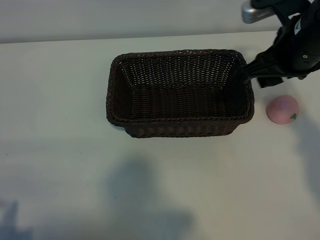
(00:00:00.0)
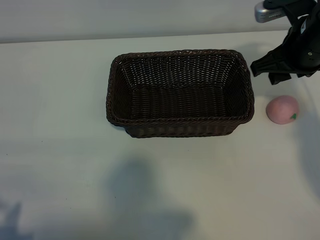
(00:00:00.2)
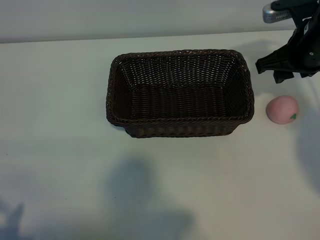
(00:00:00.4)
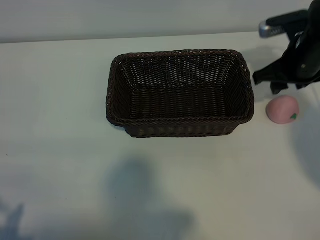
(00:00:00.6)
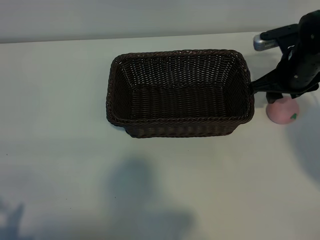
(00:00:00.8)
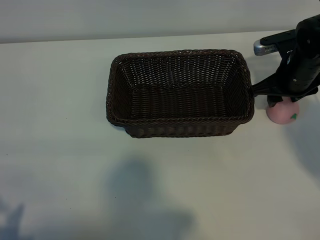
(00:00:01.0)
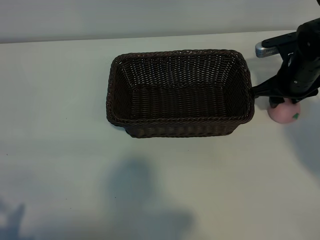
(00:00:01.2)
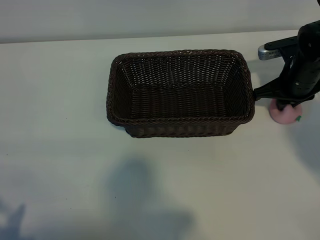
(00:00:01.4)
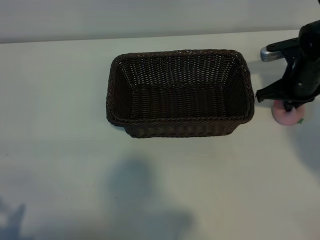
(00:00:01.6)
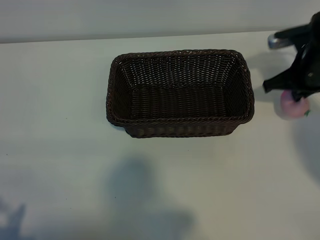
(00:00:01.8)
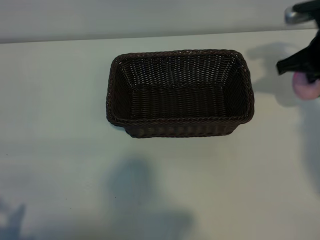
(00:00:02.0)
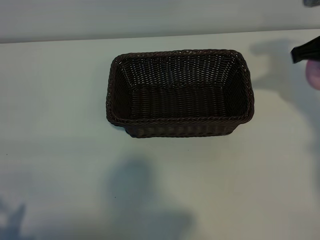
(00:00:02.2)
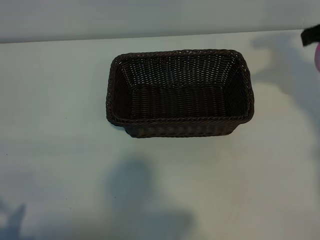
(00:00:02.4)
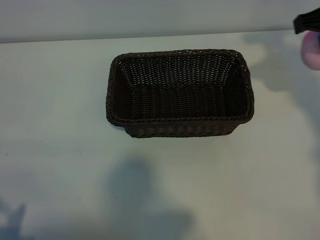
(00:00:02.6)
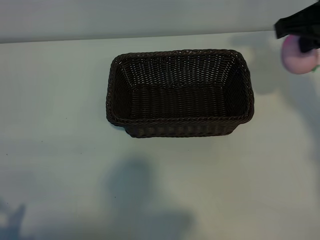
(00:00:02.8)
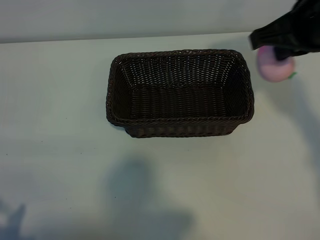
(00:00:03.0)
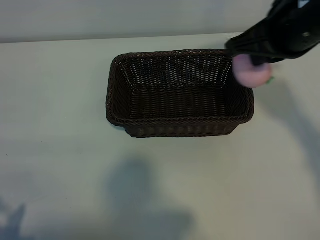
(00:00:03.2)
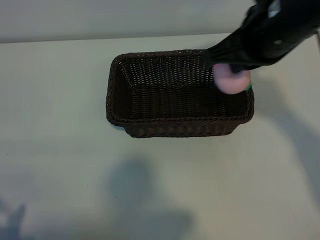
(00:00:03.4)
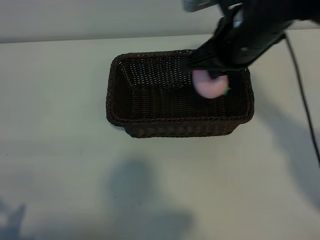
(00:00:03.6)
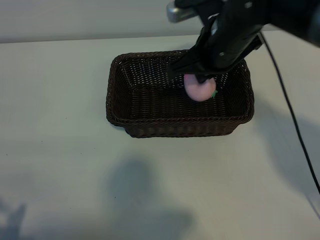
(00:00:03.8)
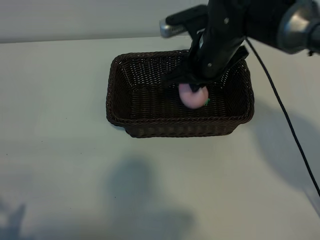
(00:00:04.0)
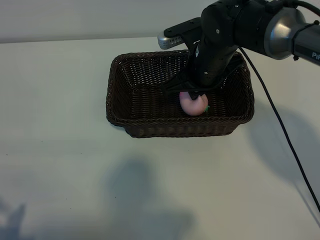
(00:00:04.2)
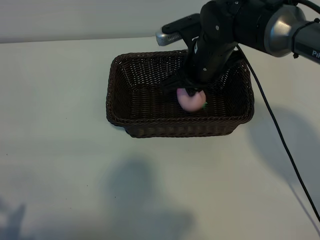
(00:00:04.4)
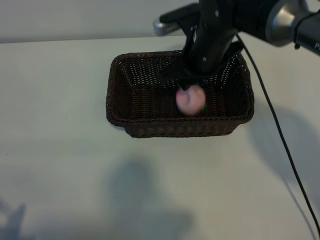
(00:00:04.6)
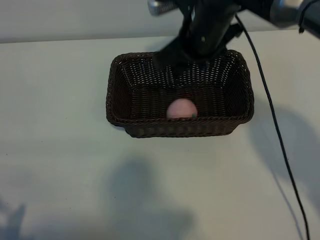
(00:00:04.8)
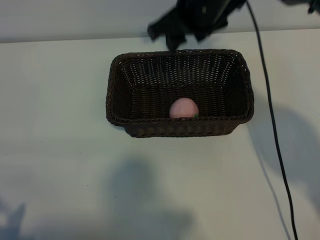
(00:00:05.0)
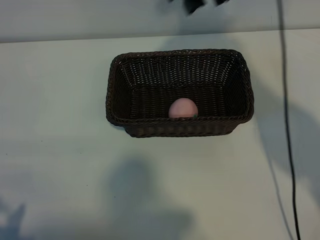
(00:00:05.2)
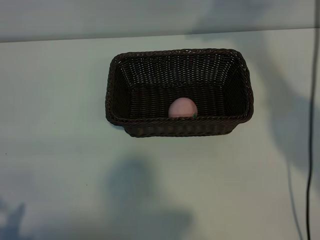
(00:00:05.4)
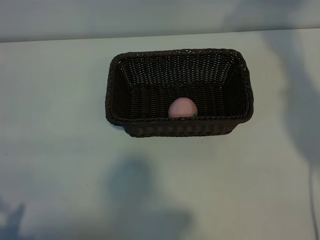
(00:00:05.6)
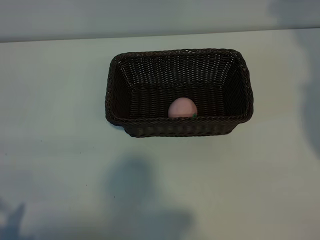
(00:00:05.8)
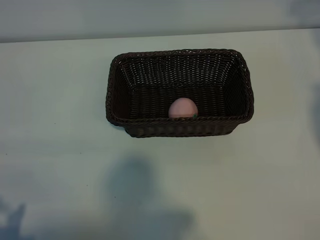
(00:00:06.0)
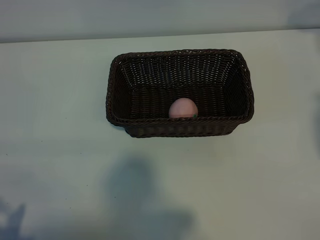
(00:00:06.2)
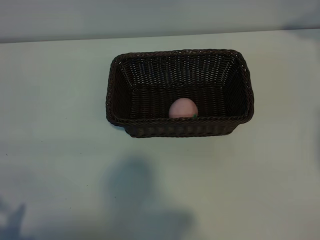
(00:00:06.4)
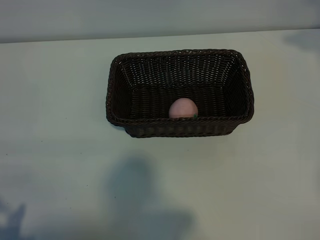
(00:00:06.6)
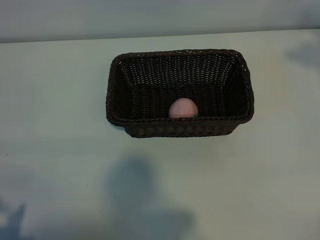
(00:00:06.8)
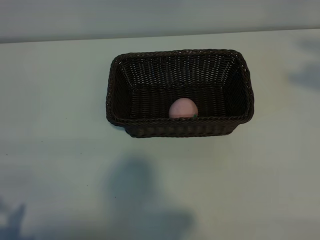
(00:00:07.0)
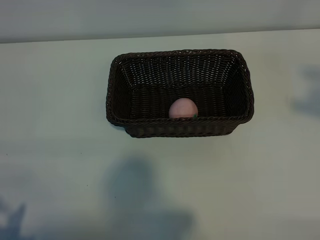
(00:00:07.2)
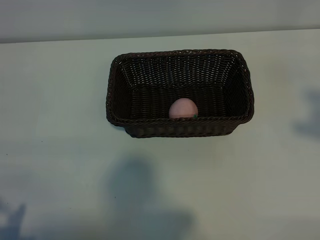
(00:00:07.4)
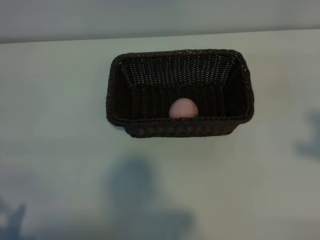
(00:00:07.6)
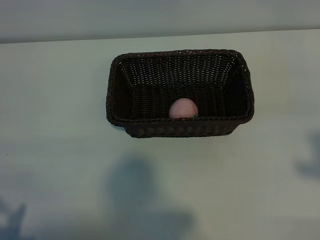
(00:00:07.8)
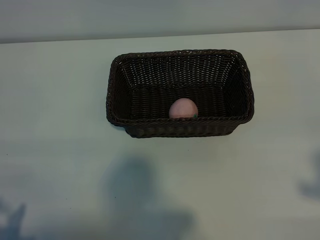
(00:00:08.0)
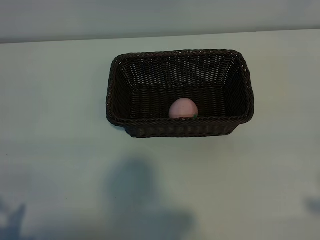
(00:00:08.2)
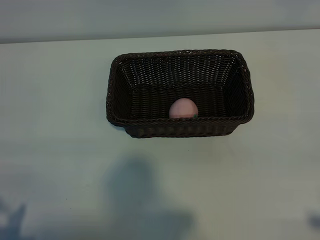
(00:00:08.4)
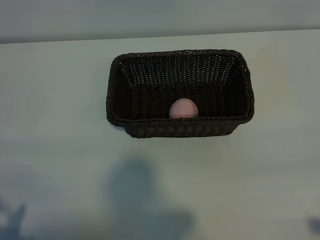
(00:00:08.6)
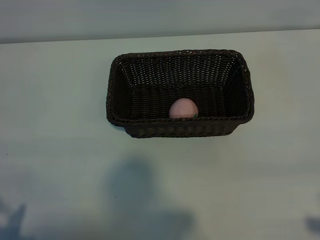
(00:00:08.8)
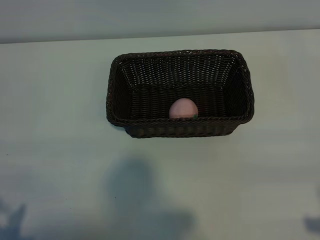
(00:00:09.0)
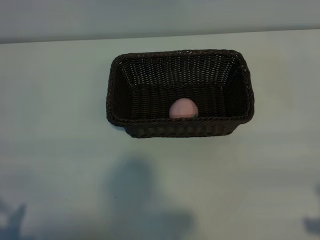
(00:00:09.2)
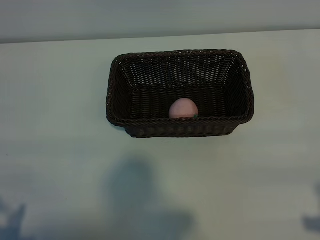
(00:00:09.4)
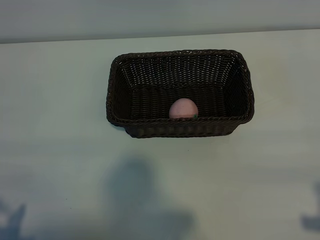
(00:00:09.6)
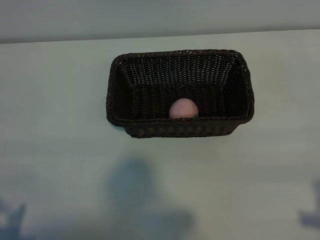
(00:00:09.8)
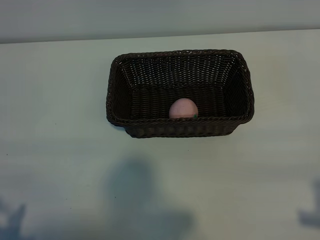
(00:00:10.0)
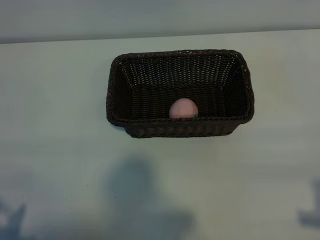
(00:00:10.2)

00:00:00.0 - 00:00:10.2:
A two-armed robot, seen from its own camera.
Task of the whole recording: pick up the peach and put it into the basket.
Step, 00:00:01.8 - 00:00:04.6: Place the peach in the basket with right gripper.

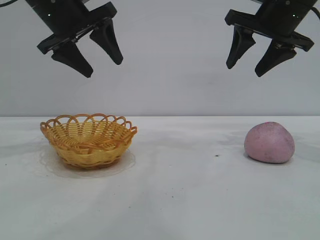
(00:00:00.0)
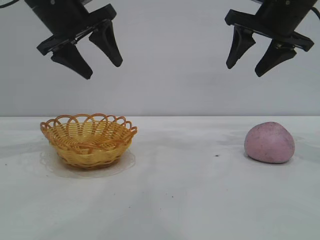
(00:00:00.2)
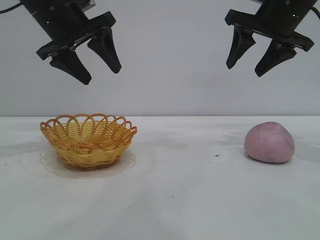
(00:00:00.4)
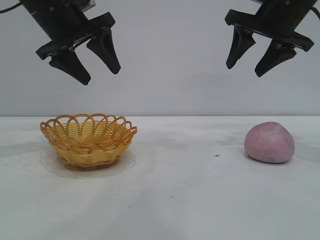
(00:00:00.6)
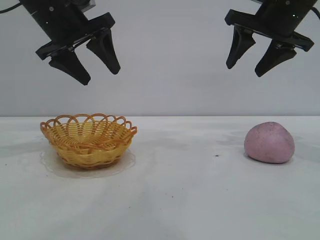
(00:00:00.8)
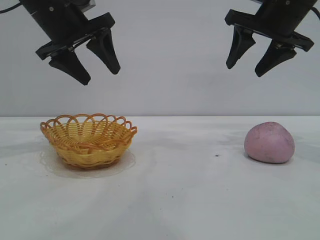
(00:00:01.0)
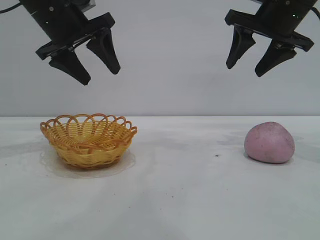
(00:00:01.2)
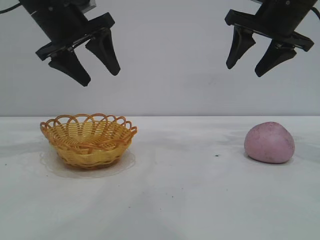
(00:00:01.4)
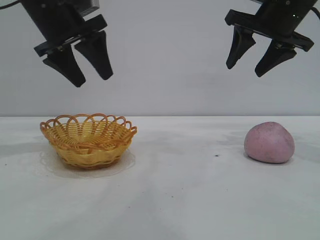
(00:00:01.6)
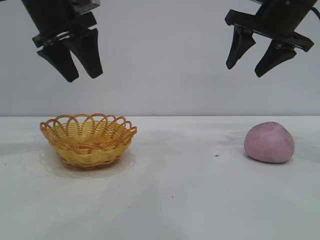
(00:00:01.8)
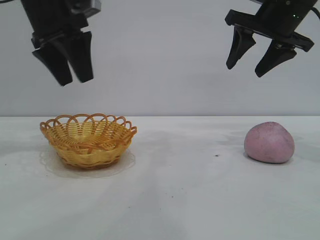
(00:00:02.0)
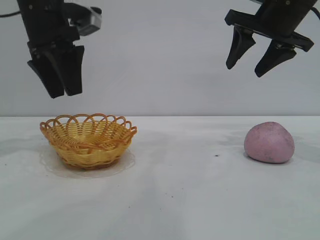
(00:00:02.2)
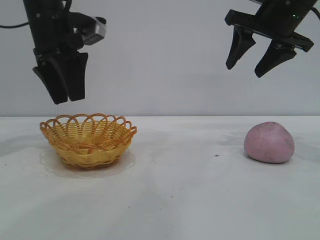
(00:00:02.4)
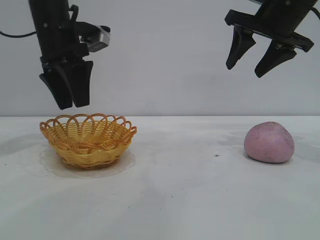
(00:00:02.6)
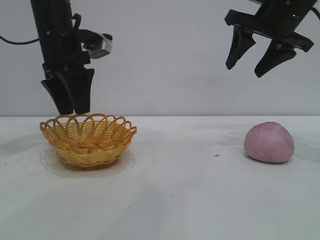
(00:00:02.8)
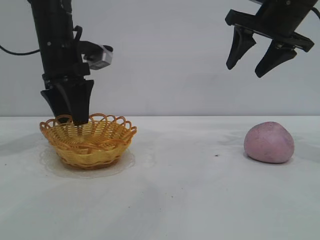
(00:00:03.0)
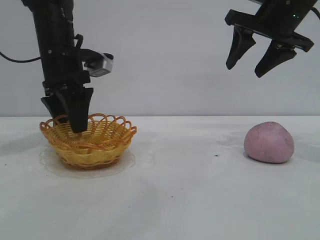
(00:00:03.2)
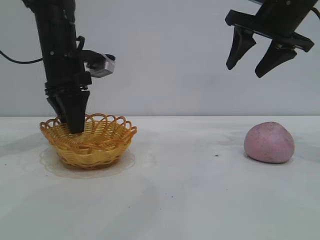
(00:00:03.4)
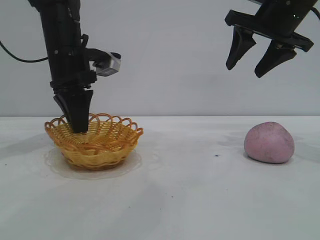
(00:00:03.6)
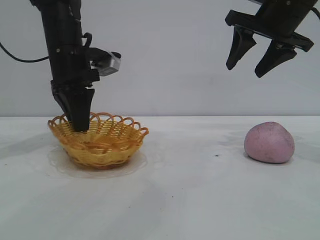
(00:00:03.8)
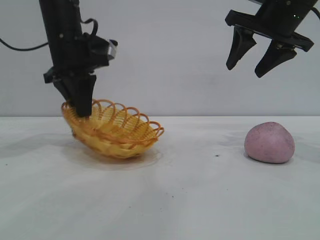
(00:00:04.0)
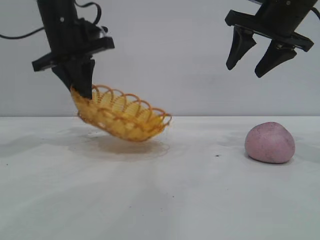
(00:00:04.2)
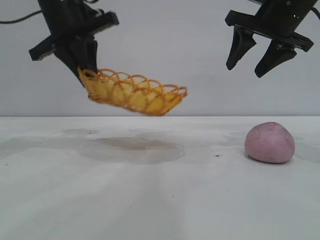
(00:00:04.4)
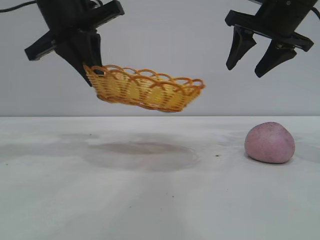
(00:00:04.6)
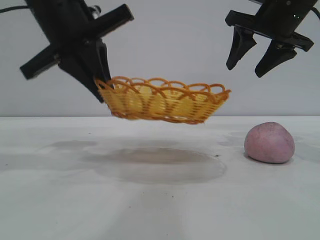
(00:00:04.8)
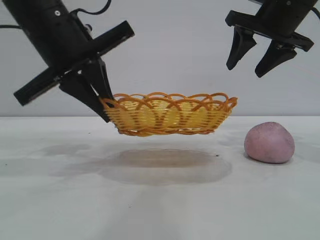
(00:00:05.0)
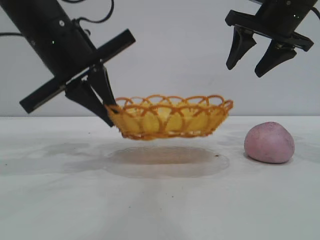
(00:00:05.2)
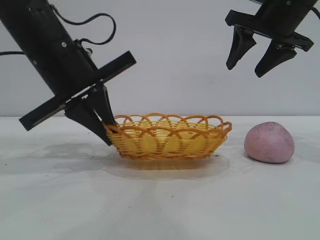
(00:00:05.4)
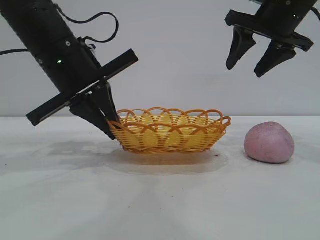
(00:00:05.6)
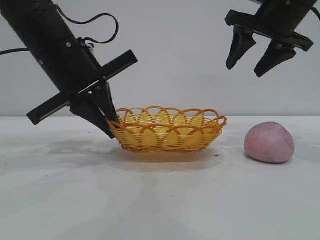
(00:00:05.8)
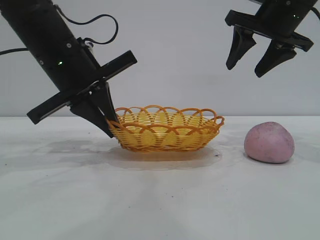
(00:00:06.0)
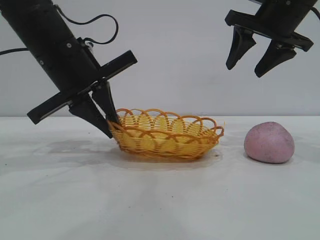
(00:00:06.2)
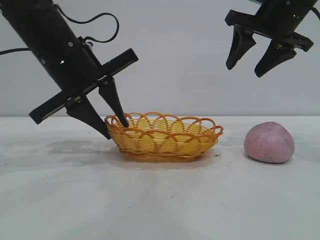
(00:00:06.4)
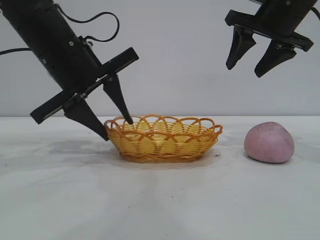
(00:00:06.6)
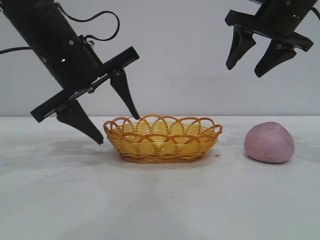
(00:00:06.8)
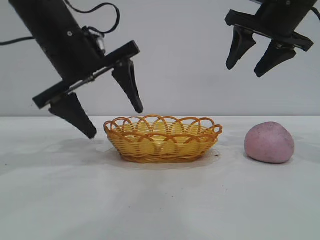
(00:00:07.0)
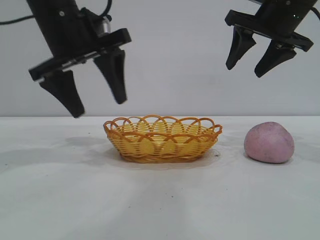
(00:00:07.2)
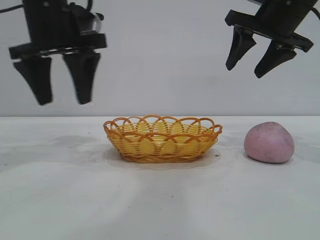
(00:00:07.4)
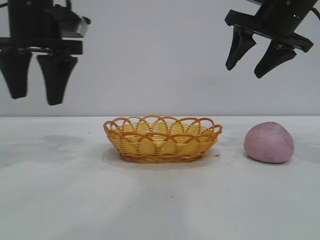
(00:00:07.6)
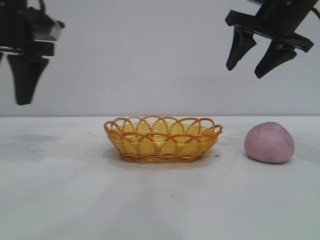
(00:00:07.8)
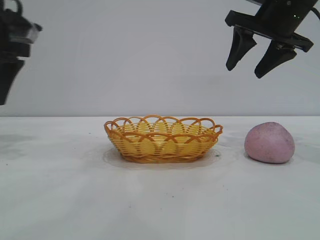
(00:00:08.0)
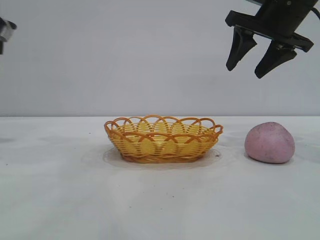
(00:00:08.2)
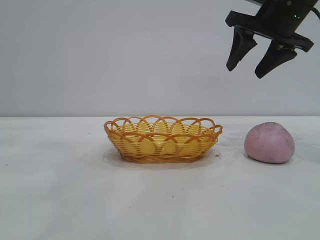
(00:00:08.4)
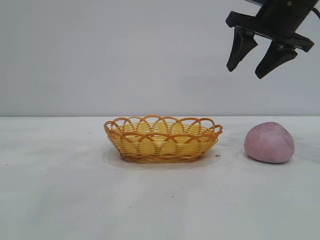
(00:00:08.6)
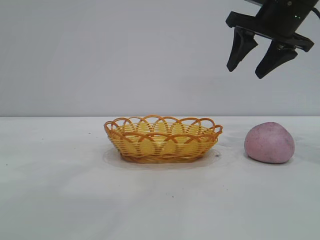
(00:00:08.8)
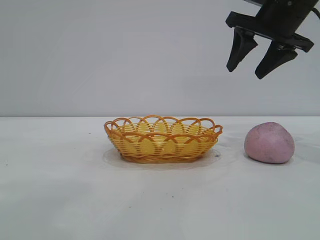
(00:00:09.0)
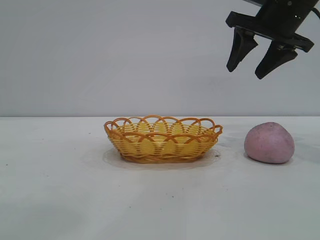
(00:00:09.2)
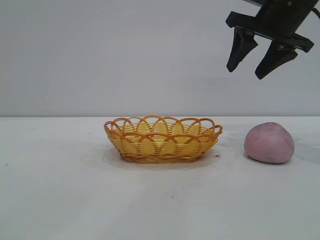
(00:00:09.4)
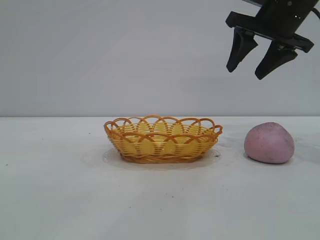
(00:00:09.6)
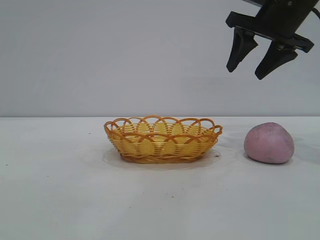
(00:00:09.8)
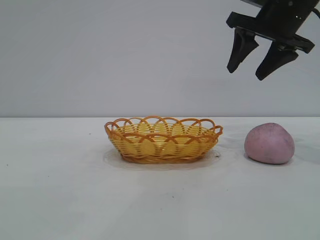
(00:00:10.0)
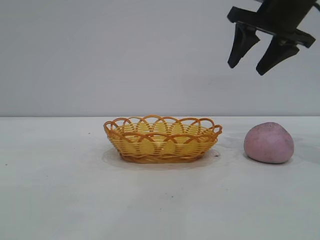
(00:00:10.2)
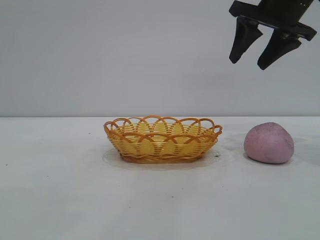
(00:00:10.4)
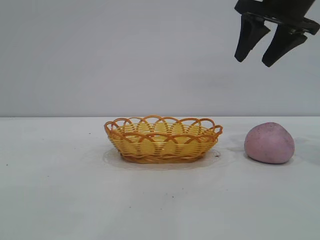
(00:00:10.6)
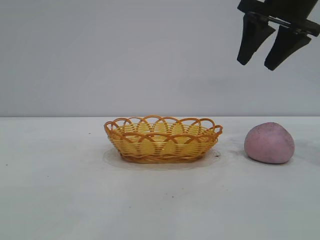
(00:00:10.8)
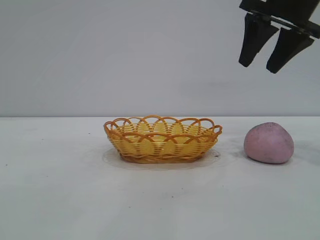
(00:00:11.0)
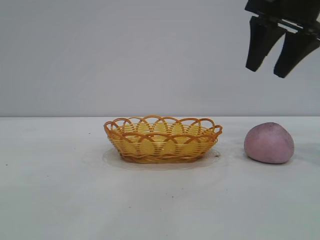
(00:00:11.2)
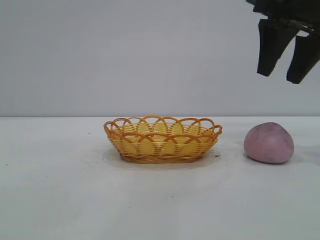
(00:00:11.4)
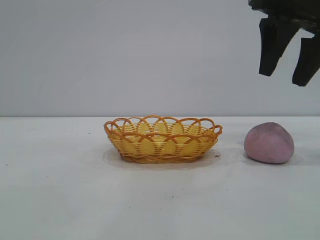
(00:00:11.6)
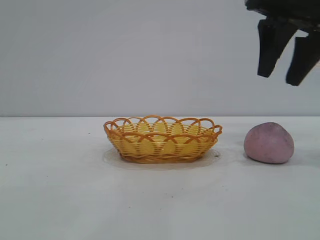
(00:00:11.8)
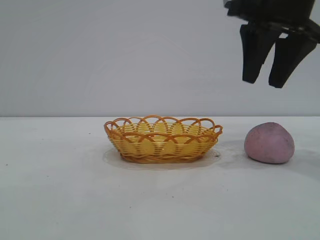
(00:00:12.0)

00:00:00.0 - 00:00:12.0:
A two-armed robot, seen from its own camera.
Task of the whole recording: pick up the peach and put it into the basket.
Step, 00:00:00.0 - 00:00:06.8: Move the basket to the center of view.
